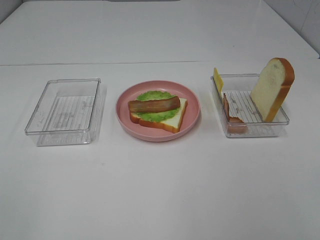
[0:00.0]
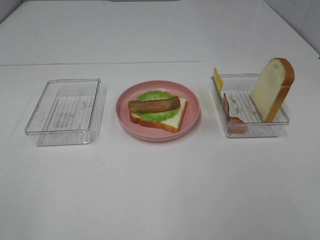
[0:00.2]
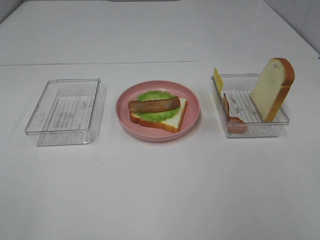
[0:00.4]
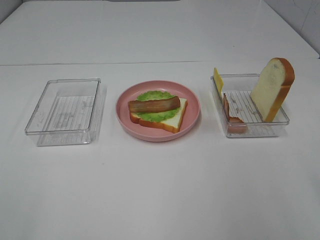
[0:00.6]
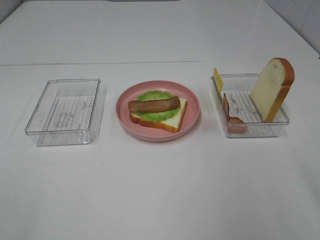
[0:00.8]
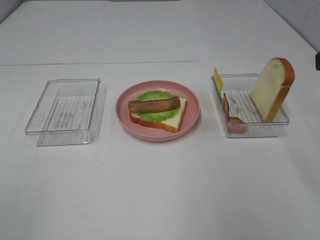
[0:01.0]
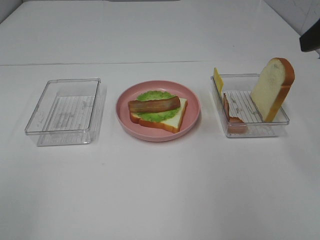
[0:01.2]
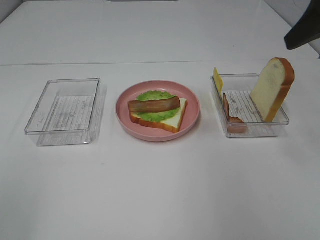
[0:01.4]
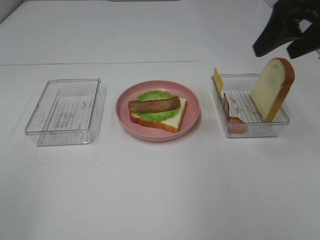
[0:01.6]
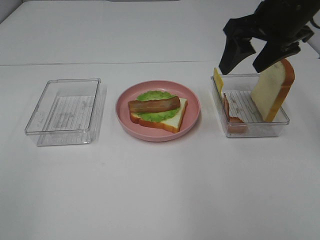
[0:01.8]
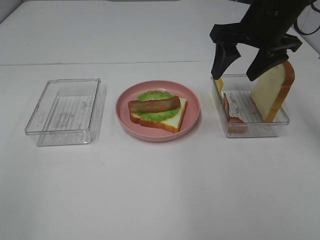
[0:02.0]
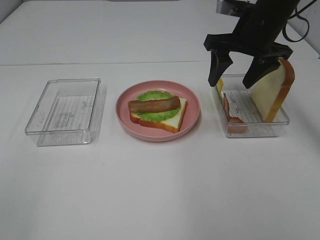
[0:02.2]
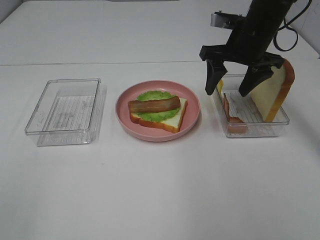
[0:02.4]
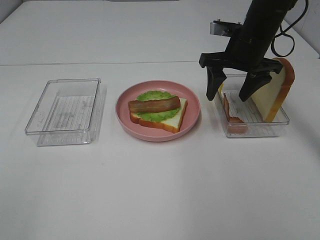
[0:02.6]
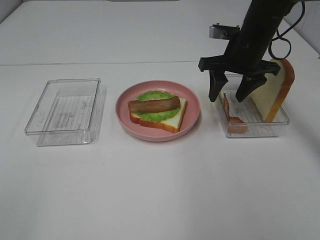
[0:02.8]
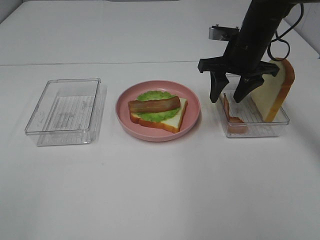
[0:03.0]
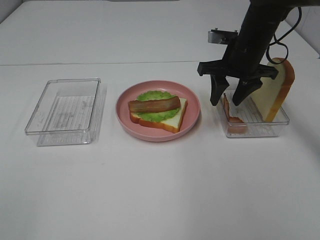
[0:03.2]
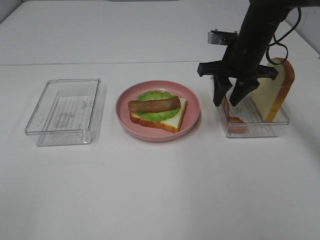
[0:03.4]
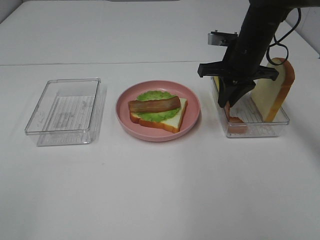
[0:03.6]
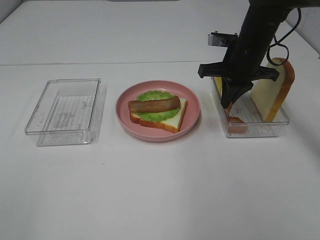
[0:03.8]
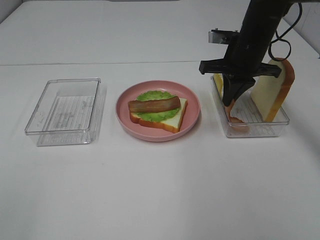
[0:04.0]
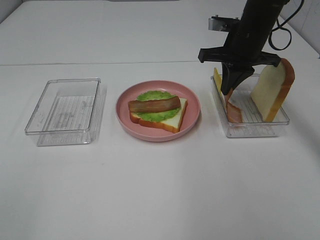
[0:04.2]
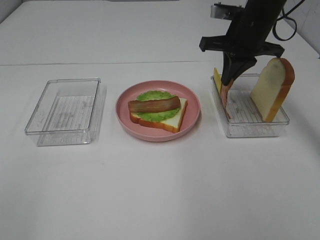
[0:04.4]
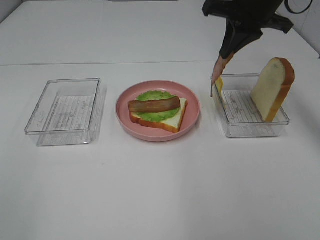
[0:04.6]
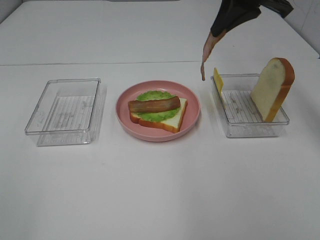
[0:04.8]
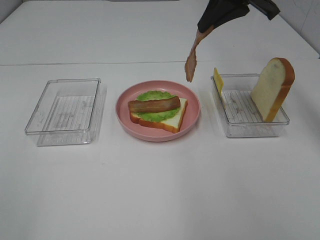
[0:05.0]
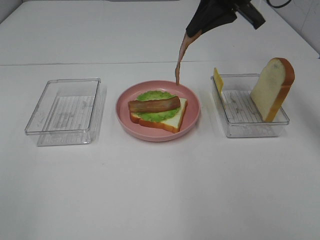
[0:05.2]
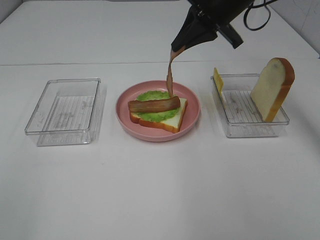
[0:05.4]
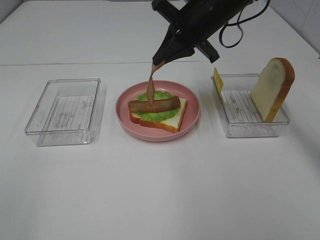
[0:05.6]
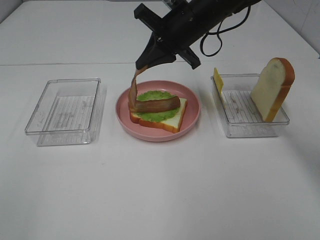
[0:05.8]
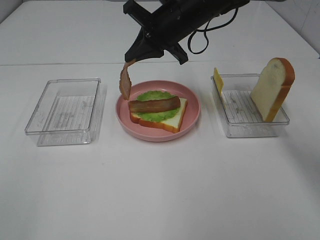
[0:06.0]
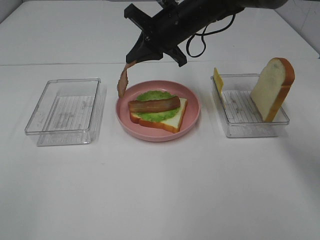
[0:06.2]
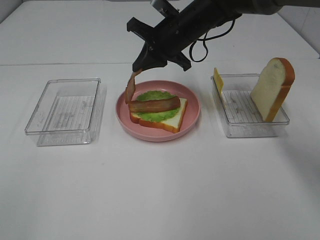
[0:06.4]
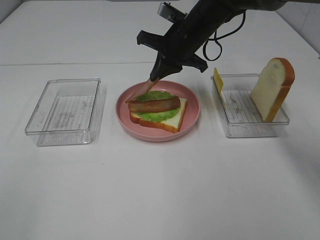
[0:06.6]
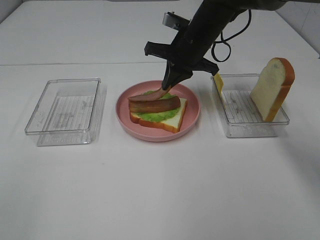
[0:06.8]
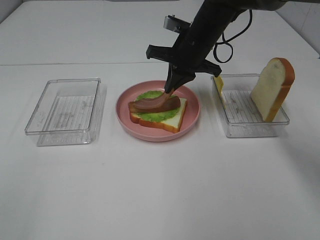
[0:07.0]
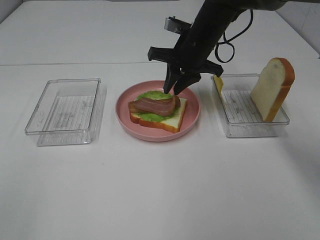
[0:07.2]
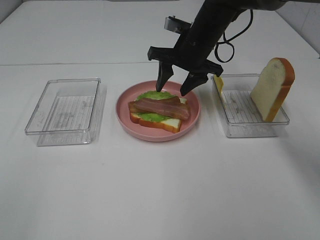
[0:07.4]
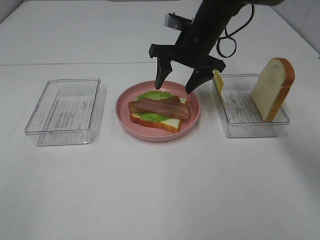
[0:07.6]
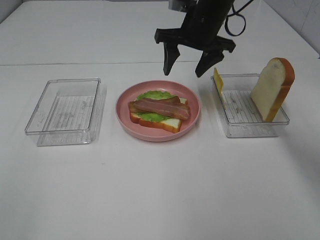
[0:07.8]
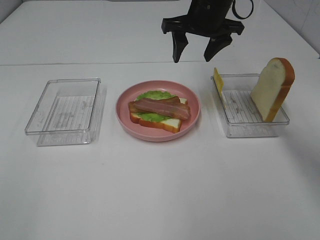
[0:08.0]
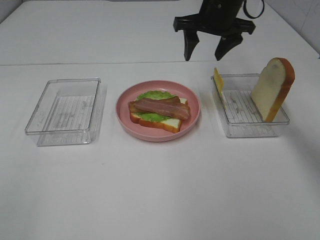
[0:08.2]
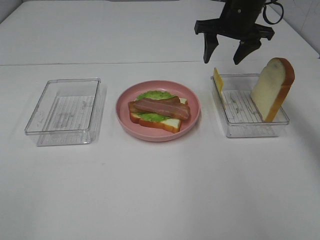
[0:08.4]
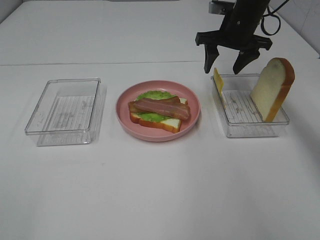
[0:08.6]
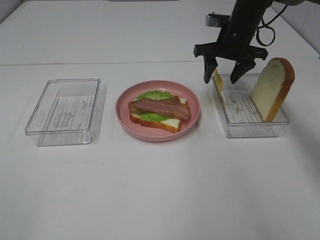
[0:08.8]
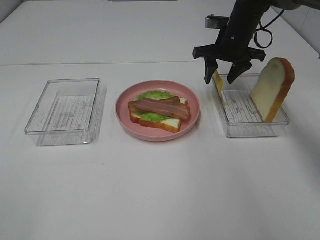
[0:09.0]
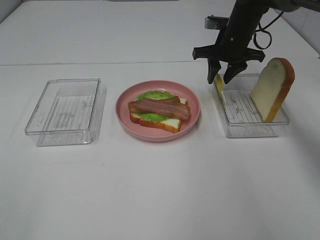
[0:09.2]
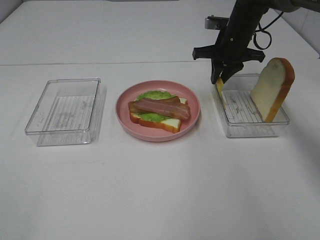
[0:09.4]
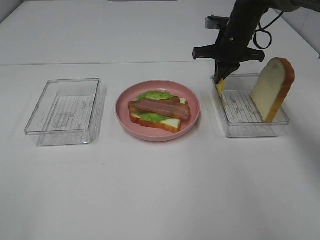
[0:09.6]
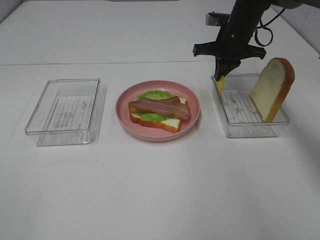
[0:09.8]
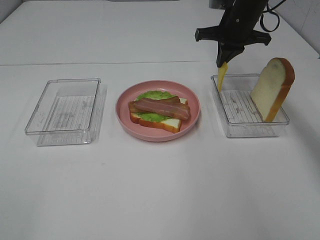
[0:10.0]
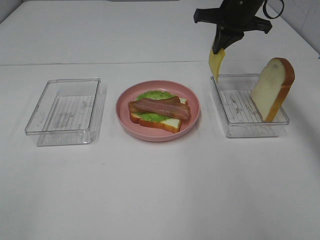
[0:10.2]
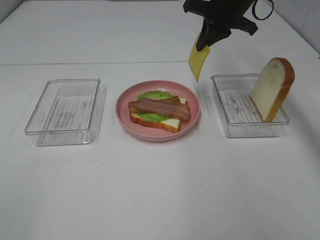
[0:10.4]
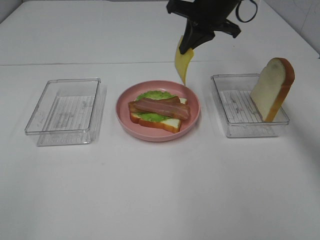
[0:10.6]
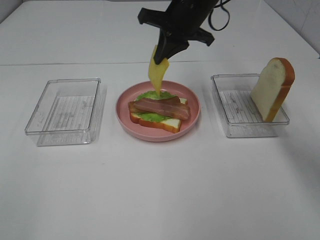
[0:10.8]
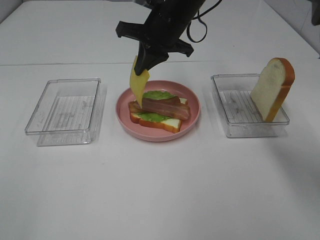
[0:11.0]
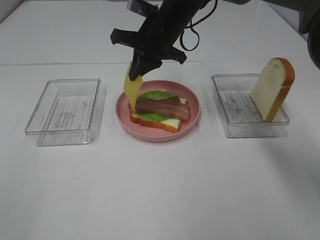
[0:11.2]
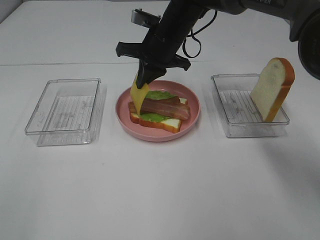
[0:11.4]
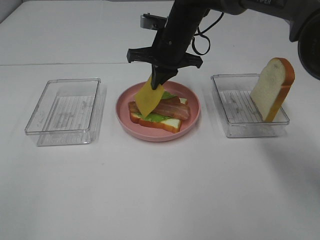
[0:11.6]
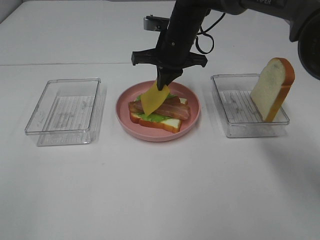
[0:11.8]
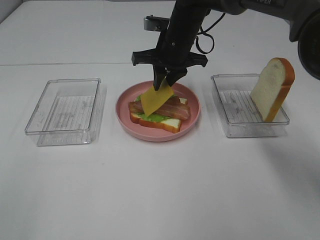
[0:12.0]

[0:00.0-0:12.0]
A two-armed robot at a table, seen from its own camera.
Task of the whole recording: Make sandwiches.
Step, 0:00.0 to 0:04.2: Right hand:grab the bacon.
Step, 0:04.4 to 0:07.2: Right hand:place bacon on bacon.
Step, 0:07.4 to 0:09.6: Right hand:grab the cheese slice.
0:00.0 to 0:01.6: The right gripper shifts about 30 cm forward.
0:01.6 to 0:03.0: The right gripper heads downward, forward and to the left, covering some 20 cm.
0:03.0 to 0:04.4: The right gripper shifts some 5 cm upward, and closes.
0:04.4 to 0:06.0: The right gripper shifts some 10 cm to the left.
0:06.0 to 0:07.6: The right gripper opens its fingers.
0:07.6 to 0:09.0: The right gripper moves to the right and forward, roughly 10 cm.
0:09.0 to 0:10.4: The right gripper heads upward, covering approximately 10 cm, and closes up.
0:10.4 to 0:12.0: The right gripper heads to the left and downward, covering roughly 15 cm, and opens its fingers.

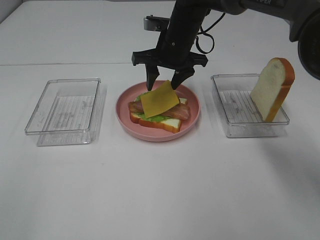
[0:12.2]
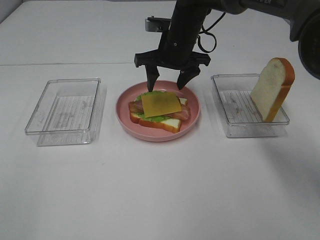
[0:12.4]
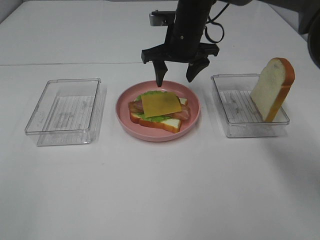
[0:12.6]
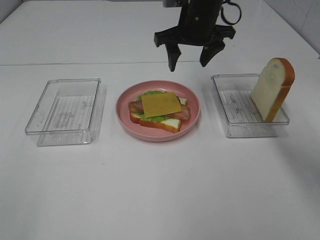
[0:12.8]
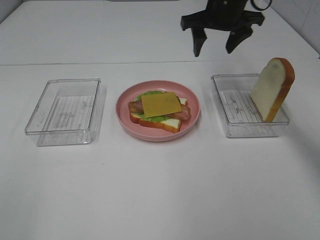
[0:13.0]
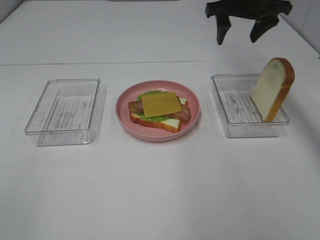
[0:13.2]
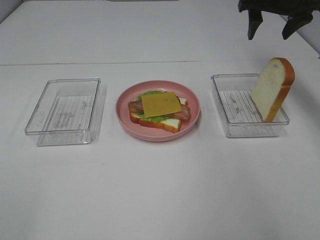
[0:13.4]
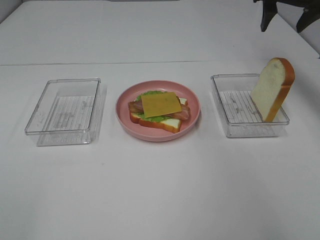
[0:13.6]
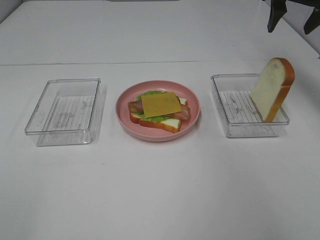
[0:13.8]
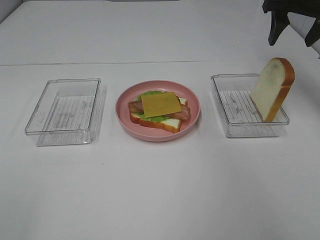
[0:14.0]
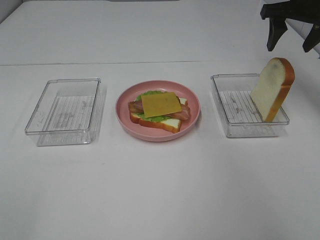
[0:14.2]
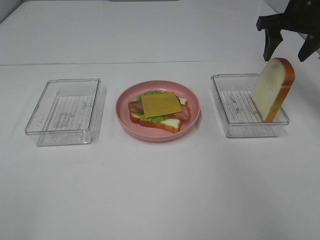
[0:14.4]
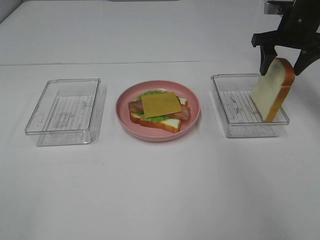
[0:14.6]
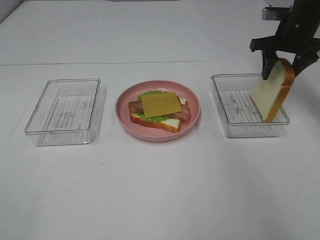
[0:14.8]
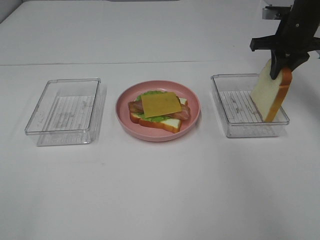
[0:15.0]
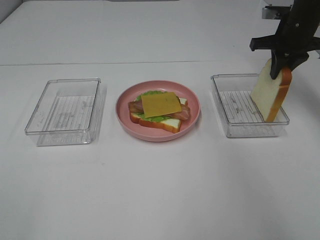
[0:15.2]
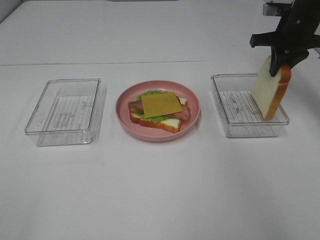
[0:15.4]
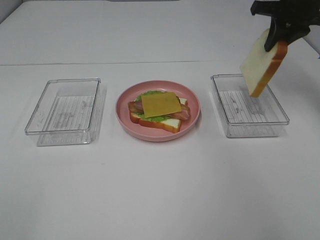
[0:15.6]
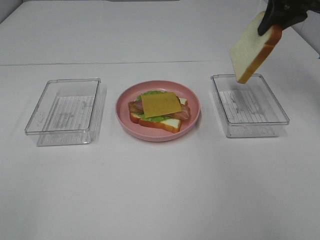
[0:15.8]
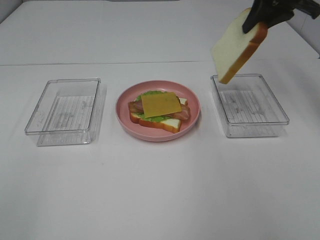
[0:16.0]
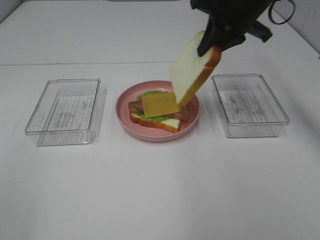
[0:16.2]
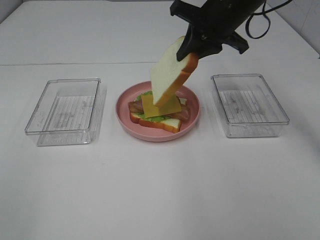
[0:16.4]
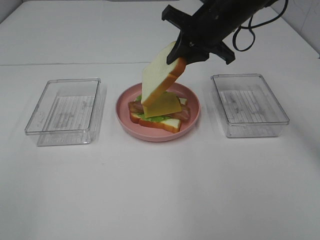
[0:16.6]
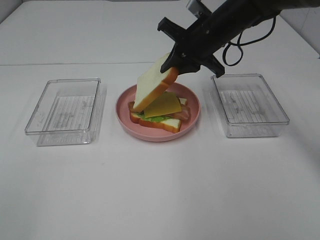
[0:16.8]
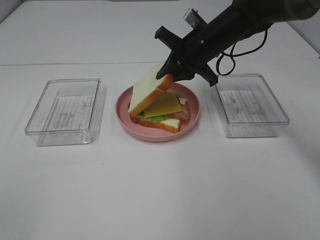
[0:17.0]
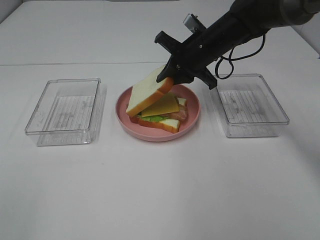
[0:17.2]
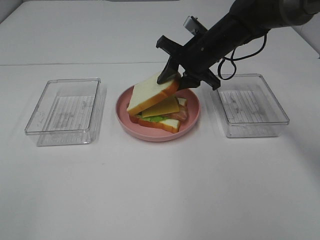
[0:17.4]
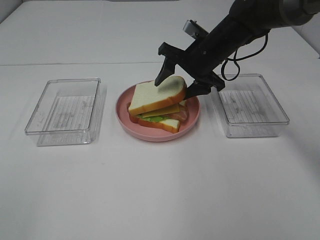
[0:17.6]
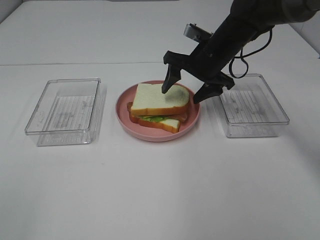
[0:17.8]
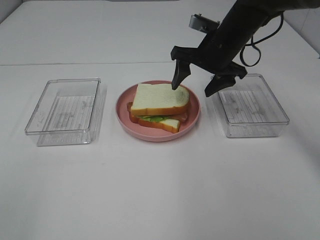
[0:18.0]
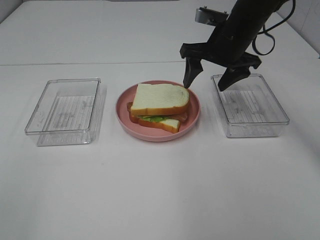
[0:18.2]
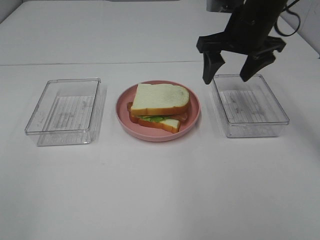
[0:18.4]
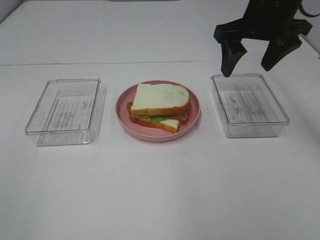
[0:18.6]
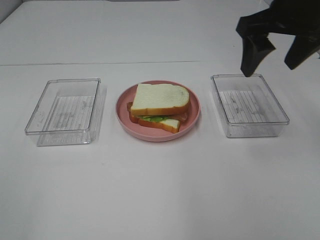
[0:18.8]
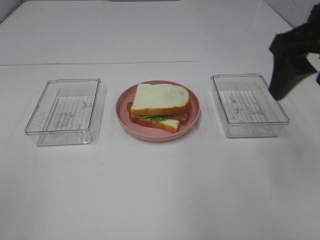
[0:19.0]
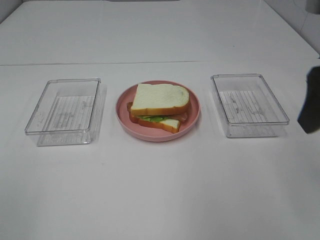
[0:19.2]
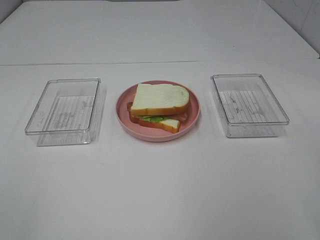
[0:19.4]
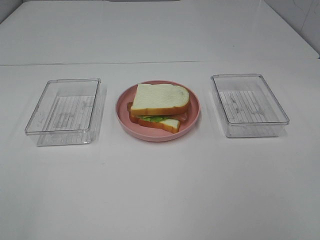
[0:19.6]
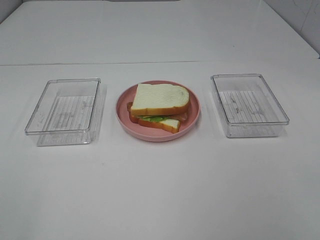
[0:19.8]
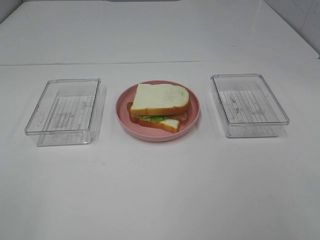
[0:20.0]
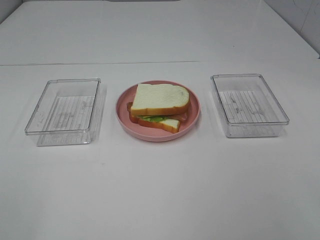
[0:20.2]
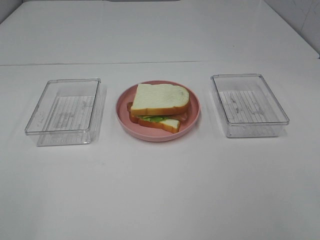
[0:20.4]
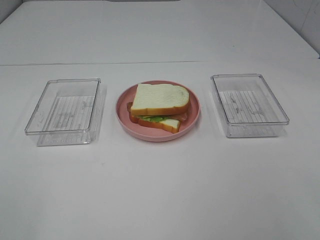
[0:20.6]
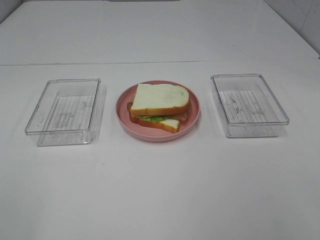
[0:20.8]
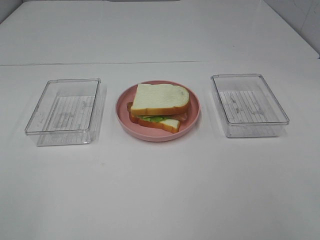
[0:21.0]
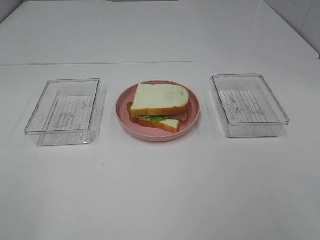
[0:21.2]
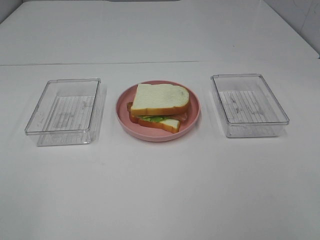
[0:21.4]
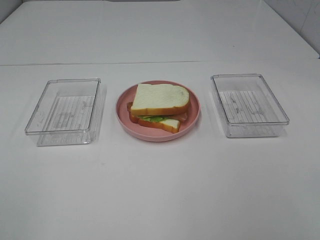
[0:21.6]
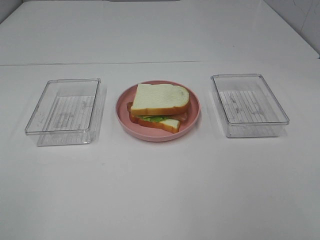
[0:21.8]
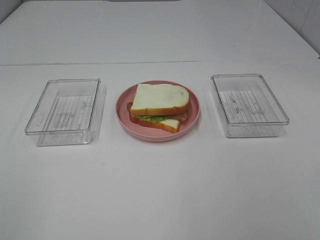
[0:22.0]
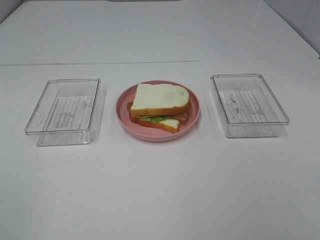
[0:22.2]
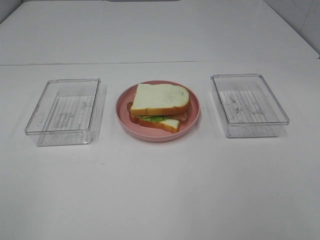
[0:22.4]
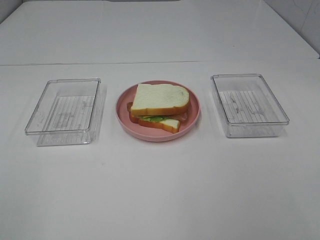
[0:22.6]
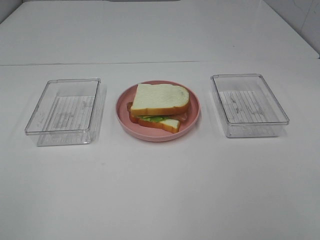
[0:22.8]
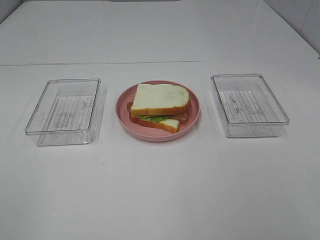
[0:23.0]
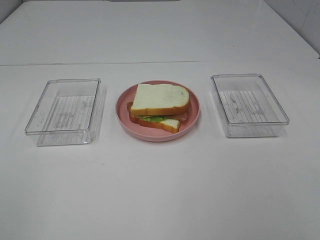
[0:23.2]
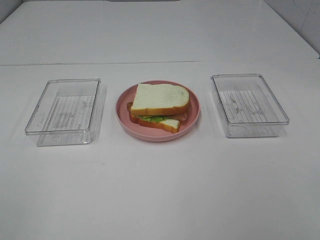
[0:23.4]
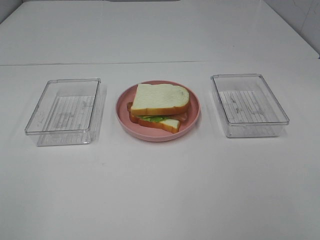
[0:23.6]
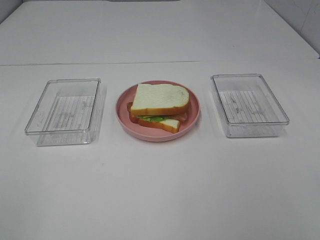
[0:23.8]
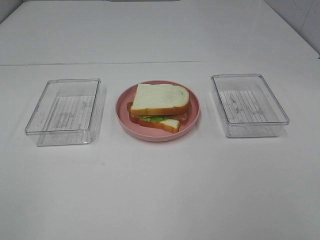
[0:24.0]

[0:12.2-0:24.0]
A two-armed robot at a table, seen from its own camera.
Task of the whole recording: Make sandwiches.
Step, 0:12.6 to 0:15.4: Right hand:grab the bread slice.
Step, 0:15.6 to 0:18.2: Right hand:place the bread slice on the cheese slice.
0:12.2 to 0:13.6: The right gripper moves to the right and upward, about 25 cm.
0:13.6 to 0:15.2: The right gripper shifts some 10 cm downward, and closes its fingers.
0:15.2 to 0:16.6: The right gripper travels to the left by roughly 15 cm.
0:16.6 to 0:18.2: The right gripper opens up.
0:18.2 to 0:19.6: The right gripper is displaced backward by some 35 cm.
0:22.6 to 0:24.0: Both grippers stay about where they are.
